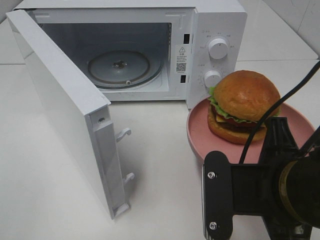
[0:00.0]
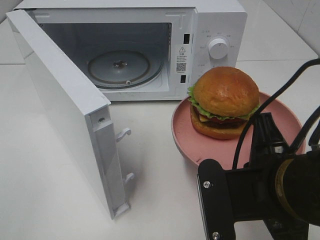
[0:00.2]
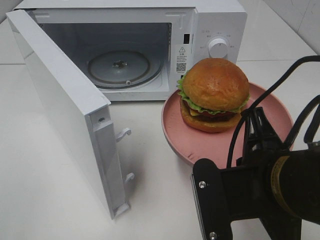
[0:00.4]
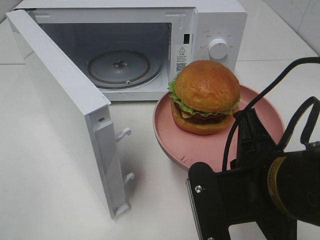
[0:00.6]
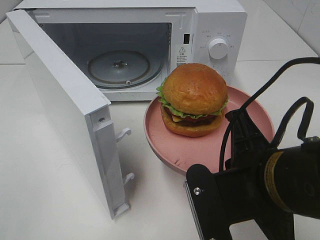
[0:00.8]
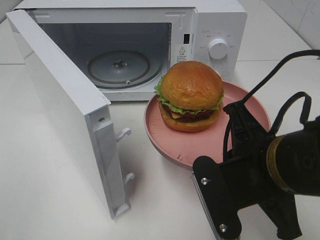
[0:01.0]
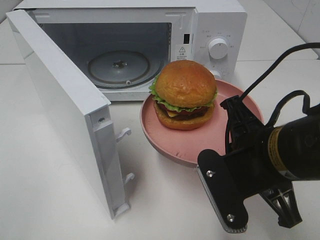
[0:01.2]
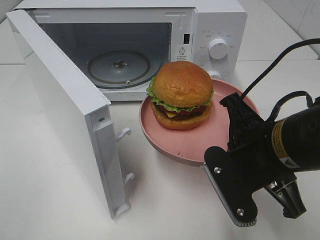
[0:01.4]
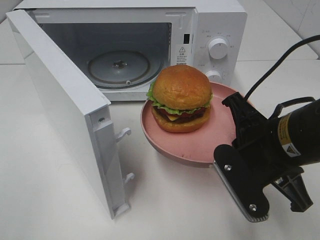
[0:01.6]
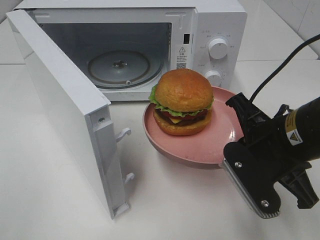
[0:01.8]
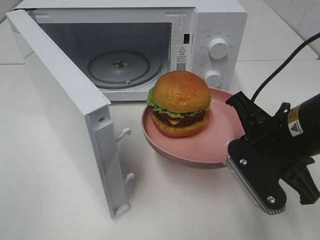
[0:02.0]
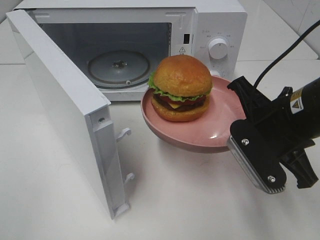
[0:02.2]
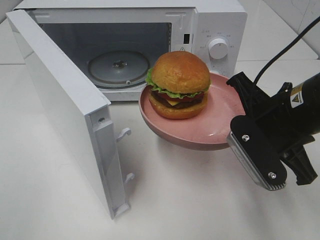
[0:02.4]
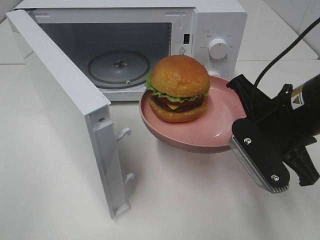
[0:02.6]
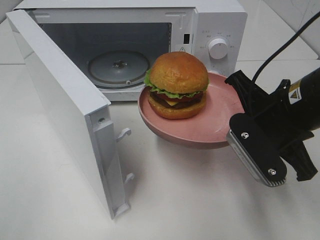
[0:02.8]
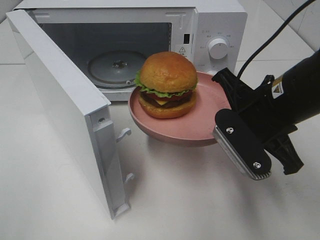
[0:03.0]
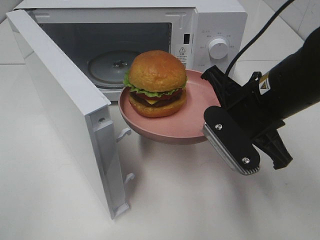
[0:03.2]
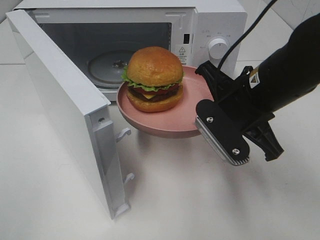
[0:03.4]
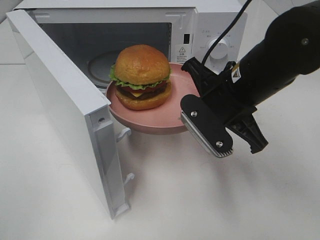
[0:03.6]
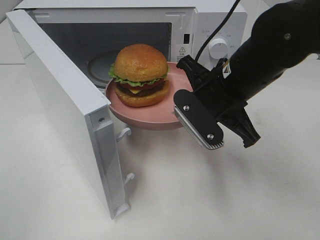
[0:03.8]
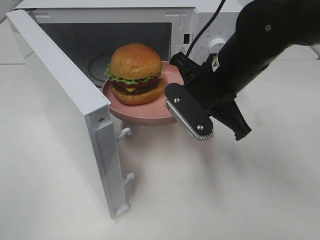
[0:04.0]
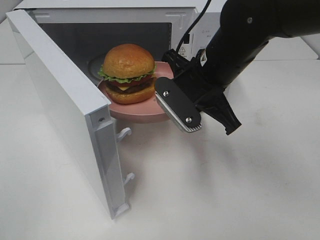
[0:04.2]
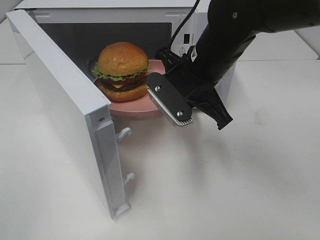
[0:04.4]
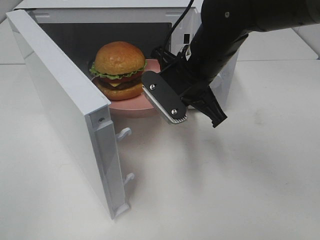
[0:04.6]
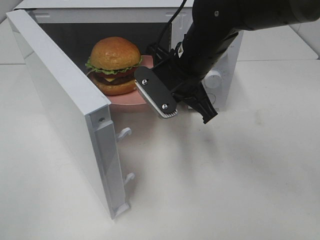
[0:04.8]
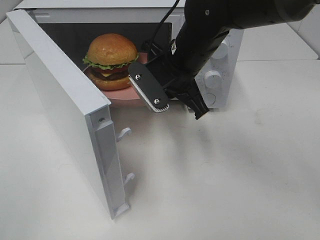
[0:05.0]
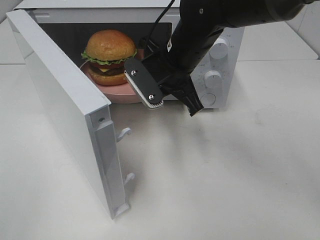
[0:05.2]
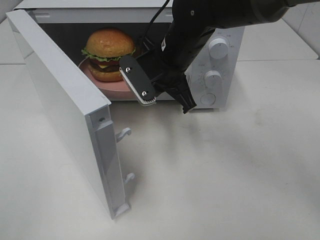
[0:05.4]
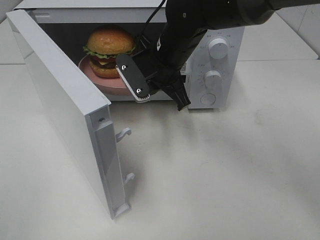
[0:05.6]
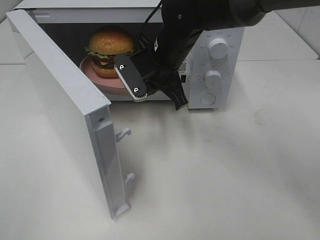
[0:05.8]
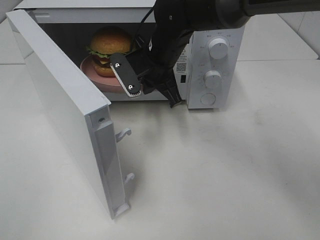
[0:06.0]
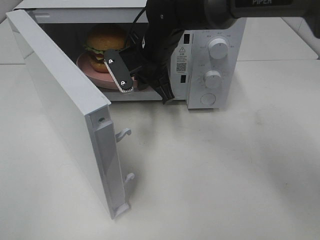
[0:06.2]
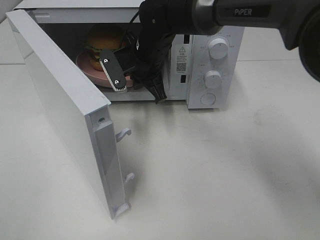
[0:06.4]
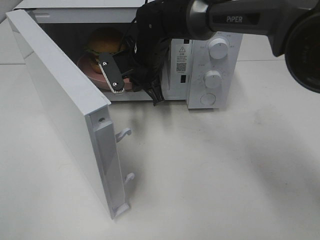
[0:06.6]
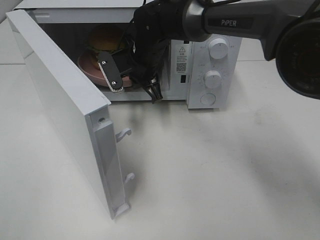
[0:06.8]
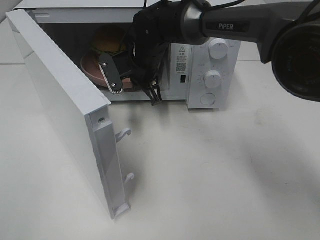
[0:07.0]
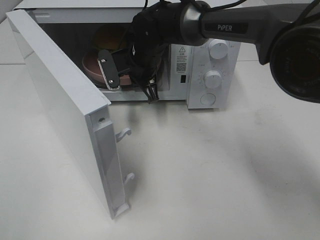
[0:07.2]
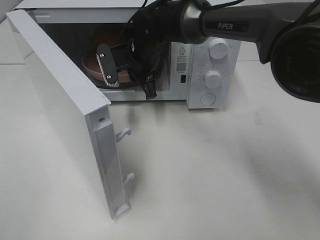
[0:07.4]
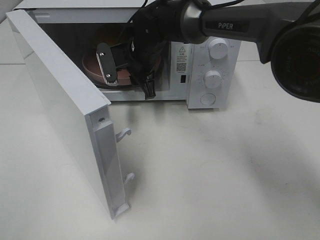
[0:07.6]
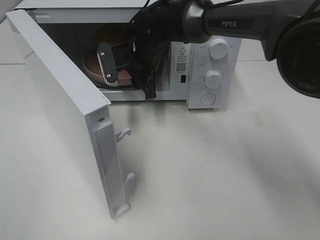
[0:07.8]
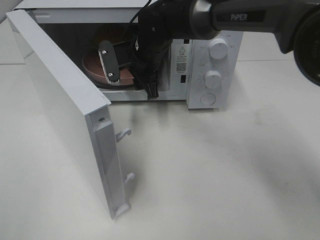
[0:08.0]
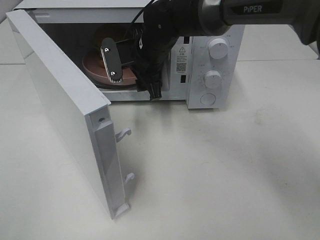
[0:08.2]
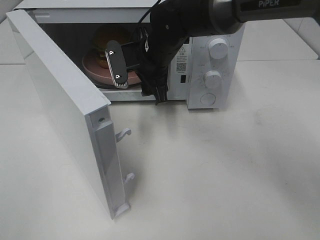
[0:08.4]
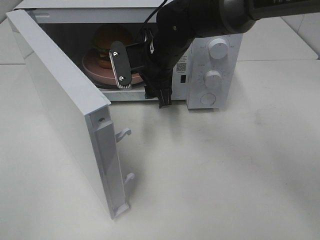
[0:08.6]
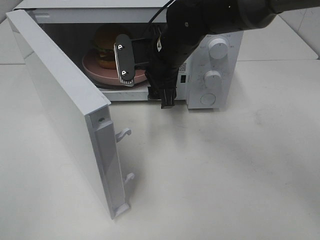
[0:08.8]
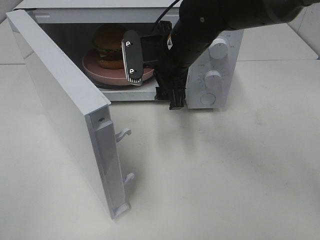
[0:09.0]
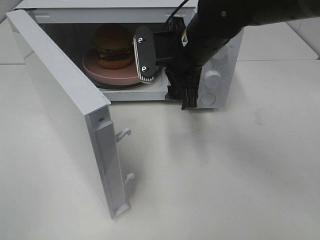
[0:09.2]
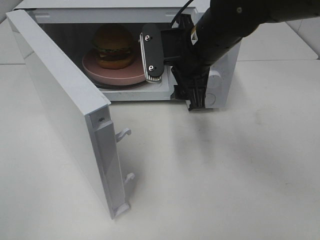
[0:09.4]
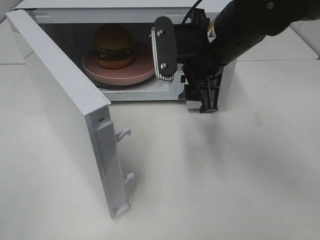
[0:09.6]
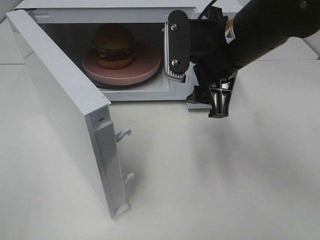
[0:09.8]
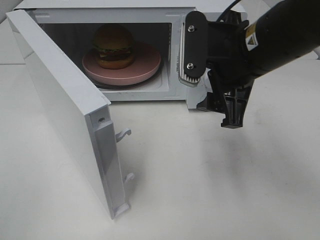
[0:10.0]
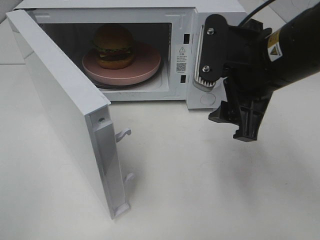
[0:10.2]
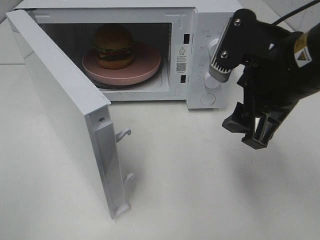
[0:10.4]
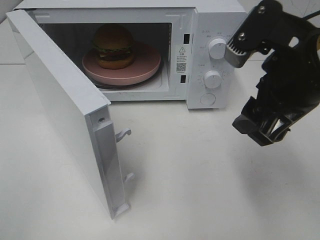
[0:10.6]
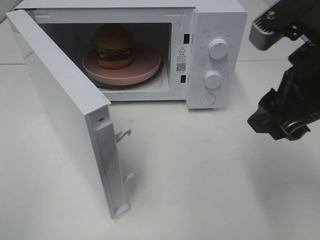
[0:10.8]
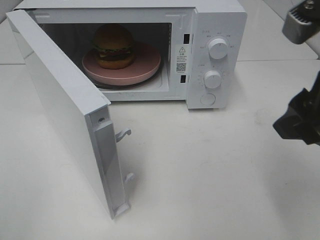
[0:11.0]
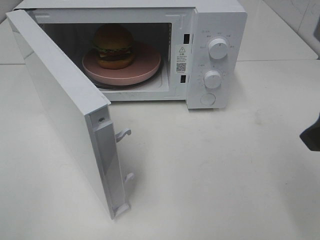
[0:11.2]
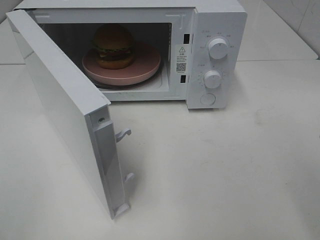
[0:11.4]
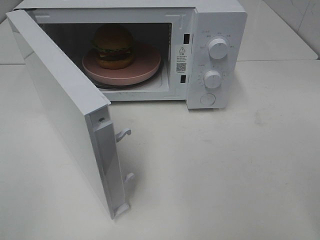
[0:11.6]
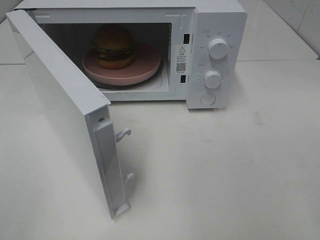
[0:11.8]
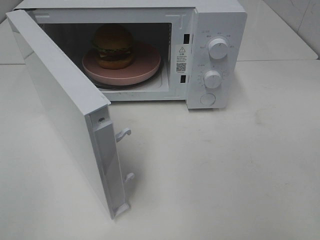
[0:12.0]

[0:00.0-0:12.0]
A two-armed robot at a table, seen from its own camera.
Task of the whole recording: Heat the burger.
Step, 0:00.0 to 0:08.2: Right hand: place the plate in the microwave.
0:00.0 to 0:01.6: The right gripper shifts approximately 5 cm forward.
0:01.6 to 0:03.0: The right gripper moves approximately 5 cm.
0:03.0 to 0:04.4: The right gripper heads forward and to the left, covering about 10 cm.
0:04.4 to 0:06.0: The right gripper is displaced forward and to the left by approximately 10 cm.
0:06.0 to 0:07.6: The right gripper changes place by some 5 cm, and opens its fingers.
0:07.6 to 0:09.0: The right gripper is displaced backward and to the right by some 10 cm.
0:09.0 to 0:10.4: The right gripper moves backward, to the right and upward, approximately 20 cm.
0:10.4 to 0:12.0: The right gripper goes about 15 cm backward and to the right.

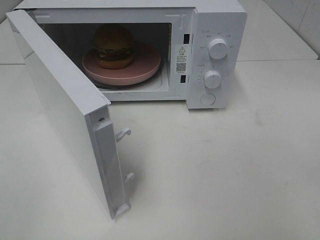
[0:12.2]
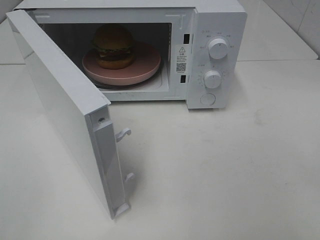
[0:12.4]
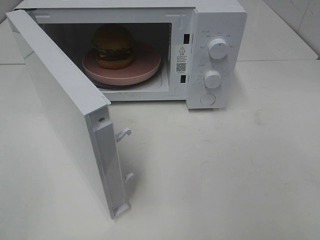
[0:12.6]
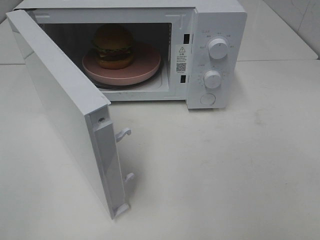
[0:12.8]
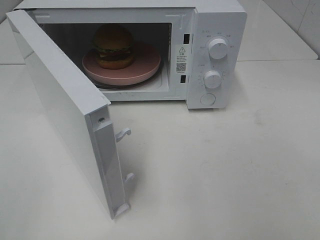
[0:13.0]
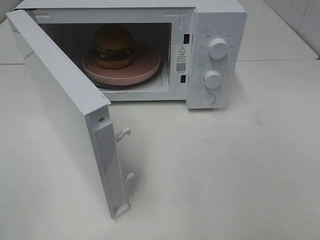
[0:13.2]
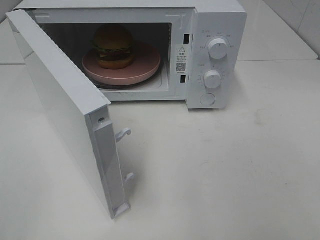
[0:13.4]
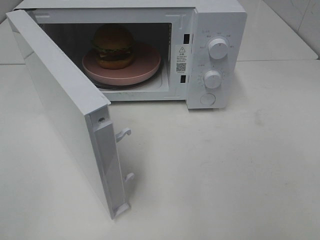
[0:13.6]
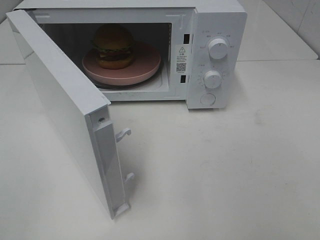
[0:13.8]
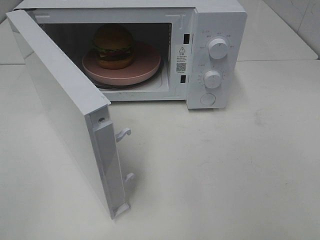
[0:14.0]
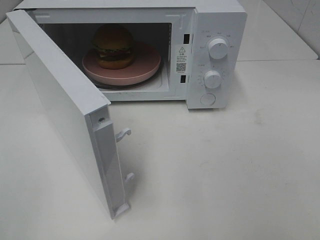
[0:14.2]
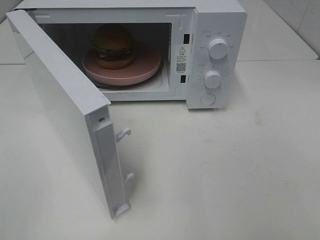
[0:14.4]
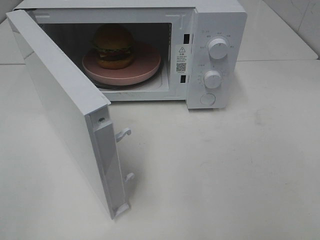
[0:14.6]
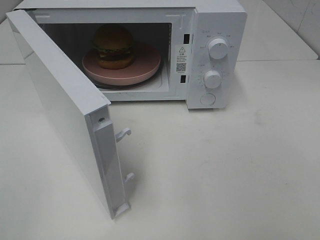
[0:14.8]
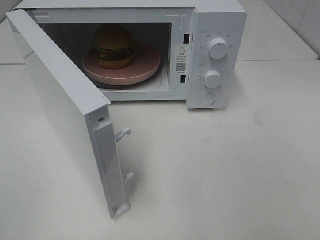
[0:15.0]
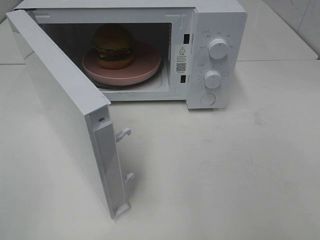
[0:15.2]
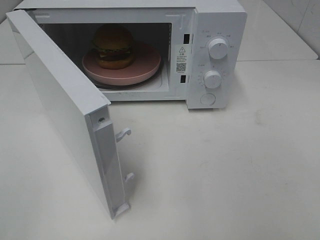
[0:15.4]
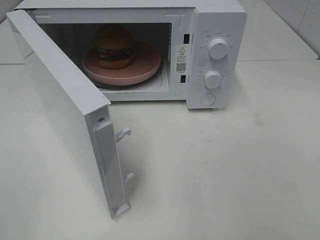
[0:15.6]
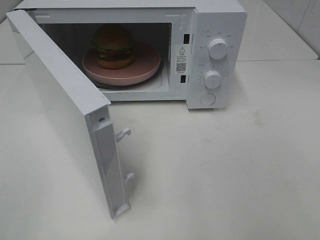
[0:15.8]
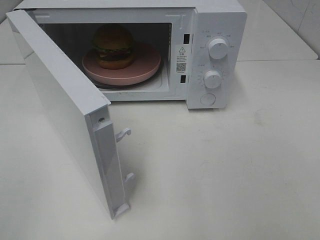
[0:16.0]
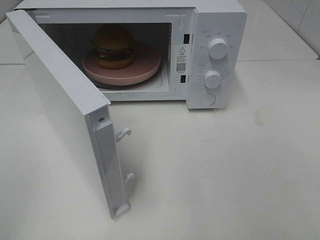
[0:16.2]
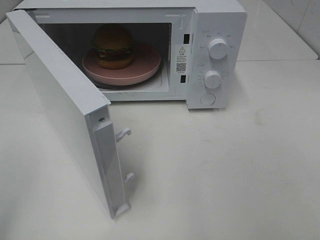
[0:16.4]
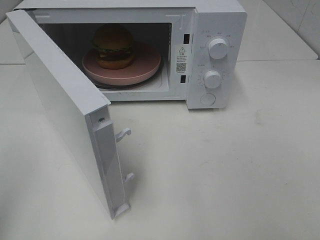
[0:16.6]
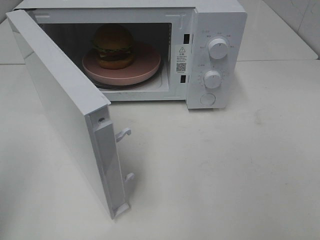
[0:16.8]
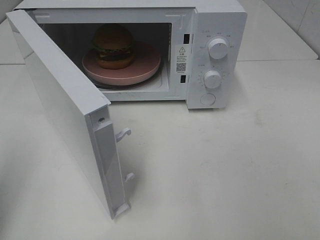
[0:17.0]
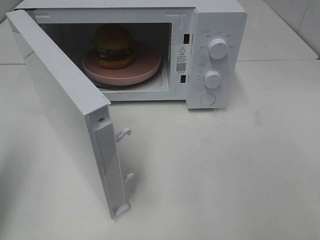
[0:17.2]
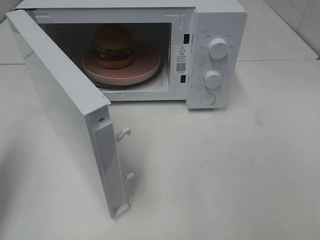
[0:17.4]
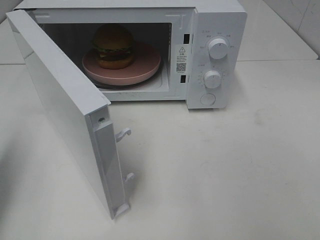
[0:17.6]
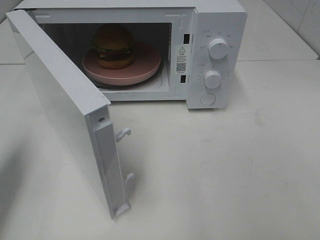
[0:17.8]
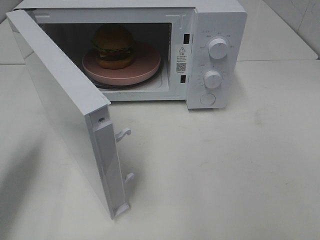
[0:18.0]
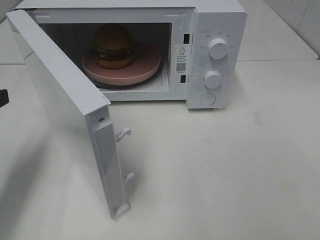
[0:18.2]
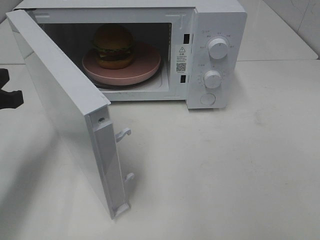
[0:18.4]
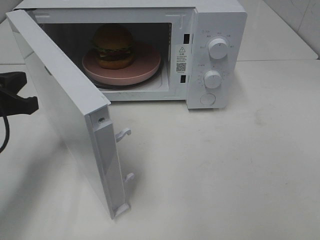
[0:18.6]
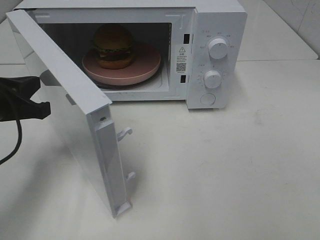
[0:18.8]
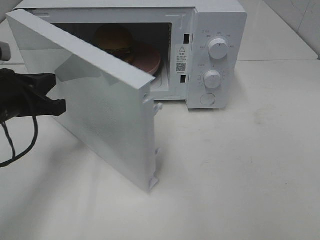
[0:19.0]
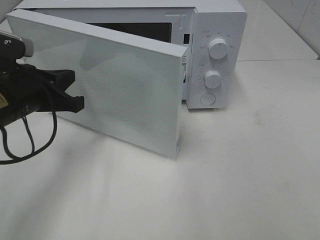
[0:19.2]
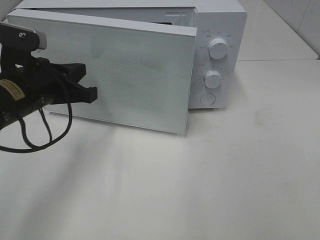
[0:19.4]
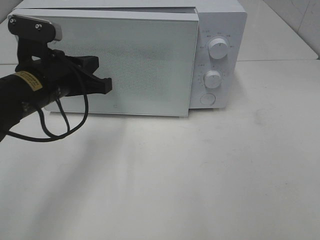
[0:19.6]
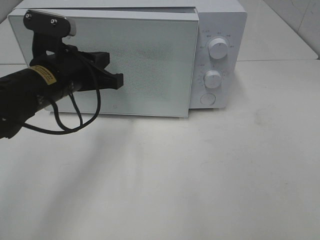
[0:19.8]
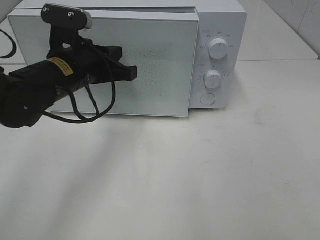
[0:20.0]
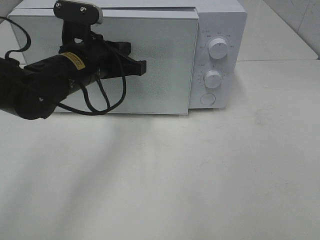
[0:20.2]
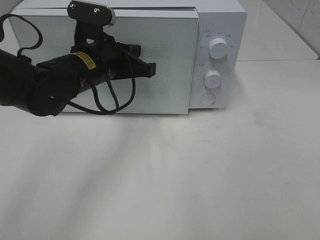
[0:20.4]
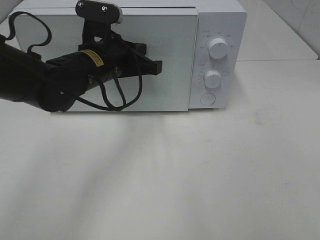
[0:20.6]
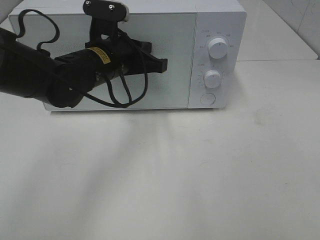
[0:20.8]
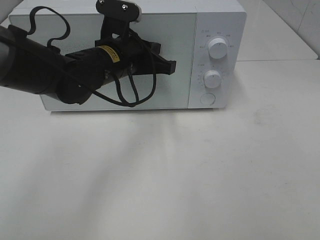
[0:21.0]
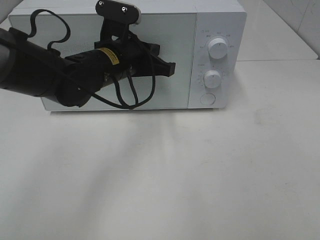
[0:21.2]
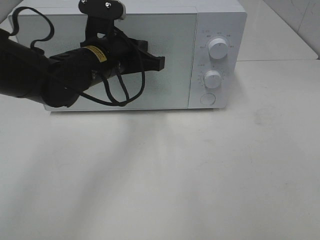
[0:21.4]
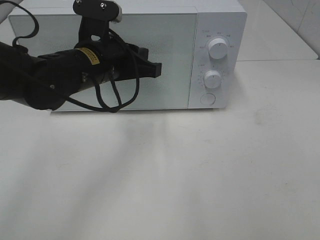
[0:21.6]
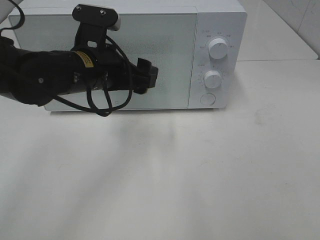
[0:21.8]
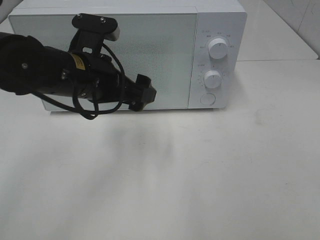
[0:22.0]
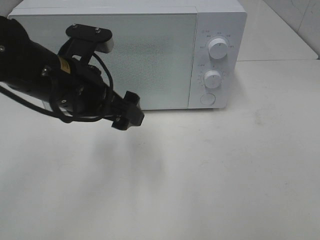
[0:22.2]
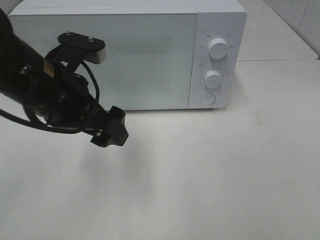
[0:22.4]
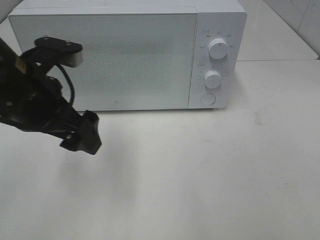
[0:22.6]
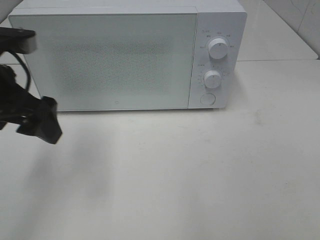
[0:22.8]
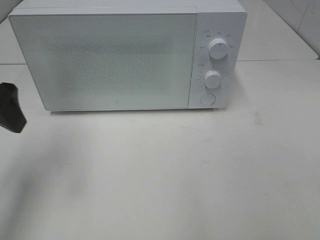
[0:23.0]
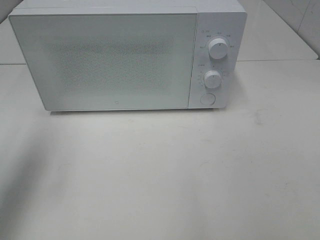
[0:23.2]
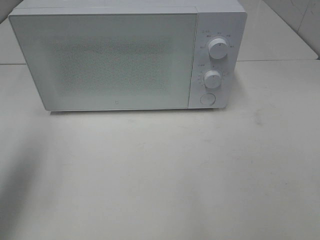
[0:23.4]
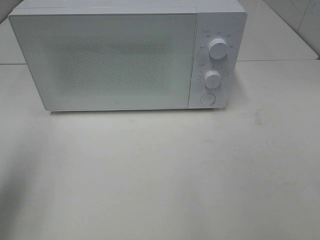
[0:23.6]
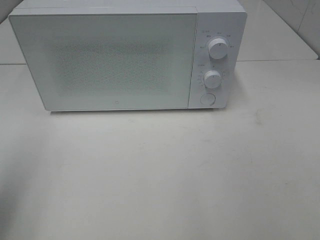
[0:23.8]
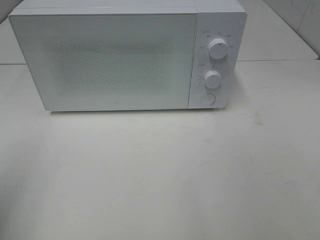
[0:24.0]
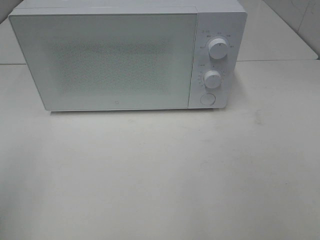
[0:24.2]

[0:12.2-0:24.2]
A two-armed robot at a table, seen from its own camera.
Task of the whole recording: Heat the burger.
Step, 0:12.2 to 0:22.0: Left hand: close the microwave door.
0:13.8 to 0:15.2: Both grippers stay about where they are.
0:16.6 to 0:18.2: The left gripper goes roughly 20 cm forward and downward.
0:18.2 to 0:19.8: The left gripper travels to the right and forward by roughly 15 cm.
0:19.8 to 0:21.2: The left gripper shifts approximately 10 cm to the right.
0:21.2 to 0:22.6: The left gripper is displaced backward, to the left and upward by roughly 15 cm, and opens.
0:22.6 to 0:24.2: The left gripper shifts approximately 25 cm backward and to the left.
